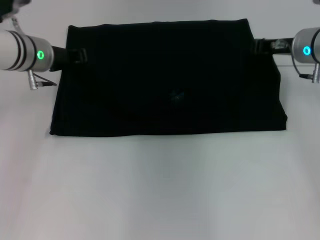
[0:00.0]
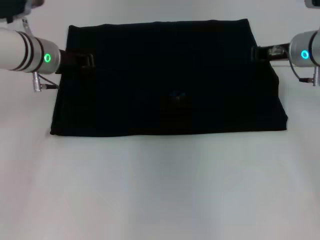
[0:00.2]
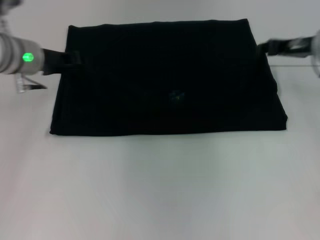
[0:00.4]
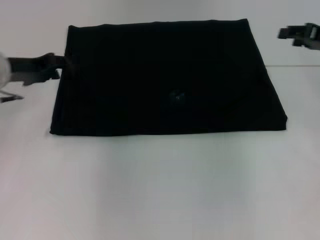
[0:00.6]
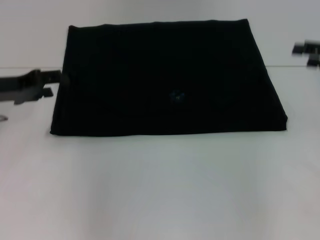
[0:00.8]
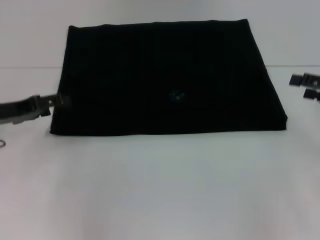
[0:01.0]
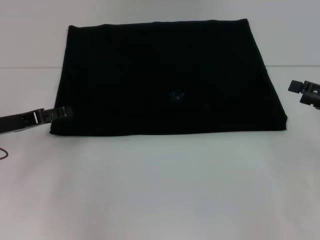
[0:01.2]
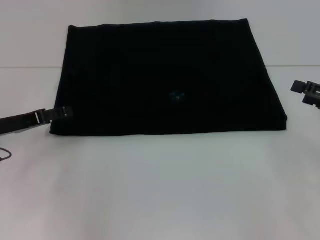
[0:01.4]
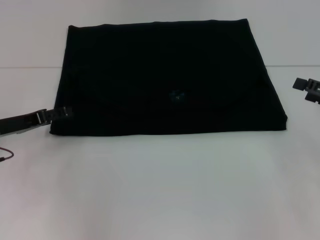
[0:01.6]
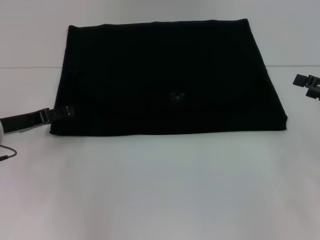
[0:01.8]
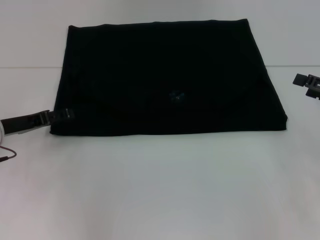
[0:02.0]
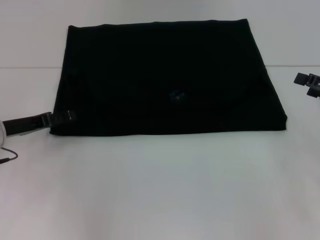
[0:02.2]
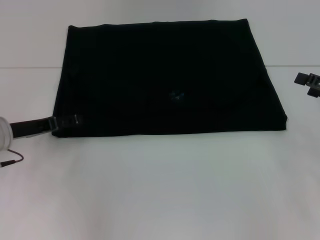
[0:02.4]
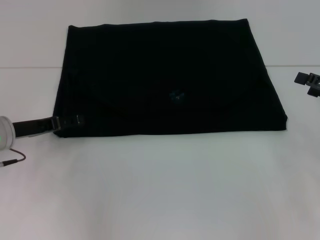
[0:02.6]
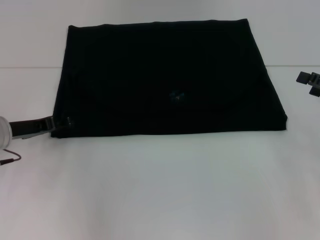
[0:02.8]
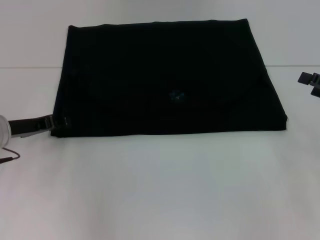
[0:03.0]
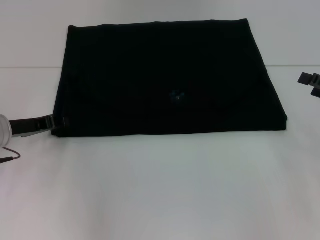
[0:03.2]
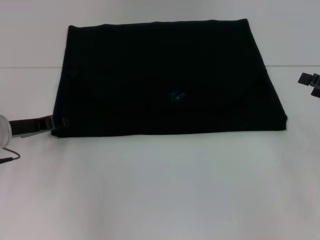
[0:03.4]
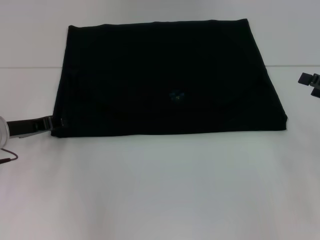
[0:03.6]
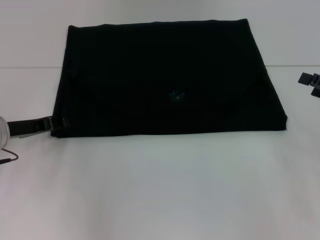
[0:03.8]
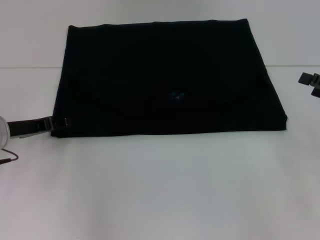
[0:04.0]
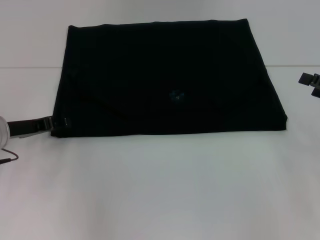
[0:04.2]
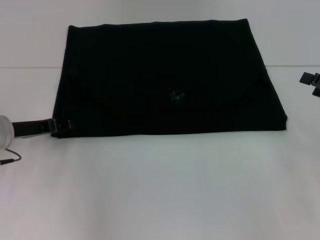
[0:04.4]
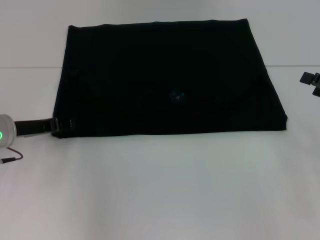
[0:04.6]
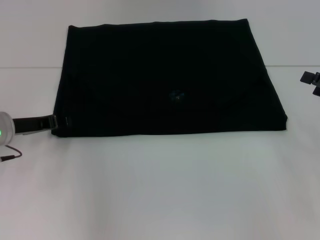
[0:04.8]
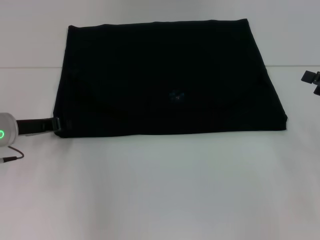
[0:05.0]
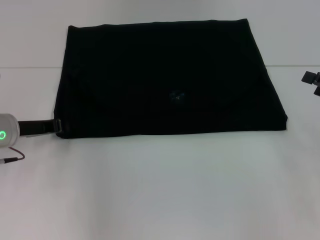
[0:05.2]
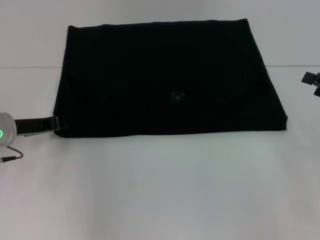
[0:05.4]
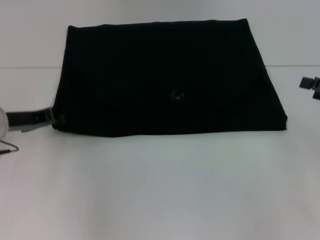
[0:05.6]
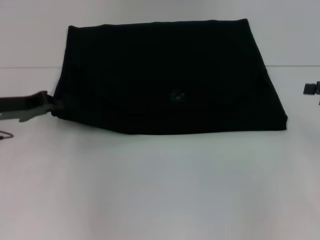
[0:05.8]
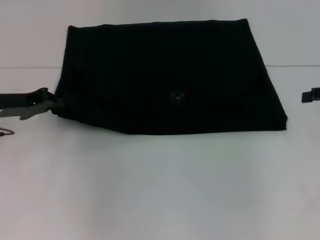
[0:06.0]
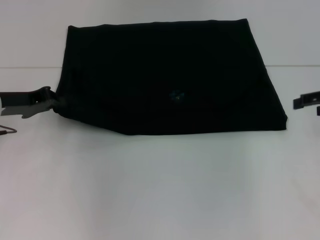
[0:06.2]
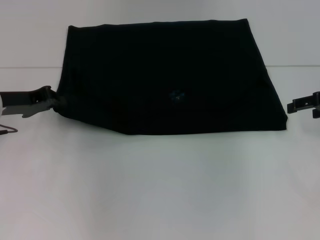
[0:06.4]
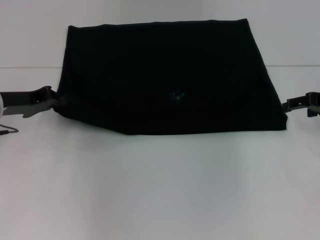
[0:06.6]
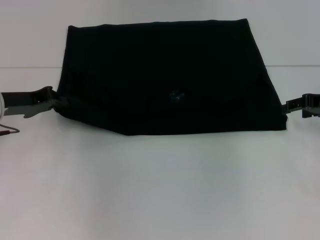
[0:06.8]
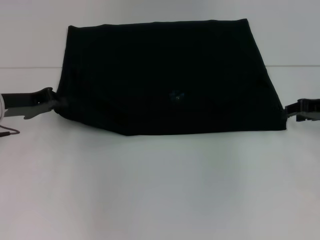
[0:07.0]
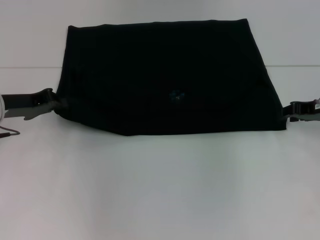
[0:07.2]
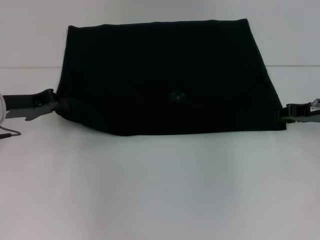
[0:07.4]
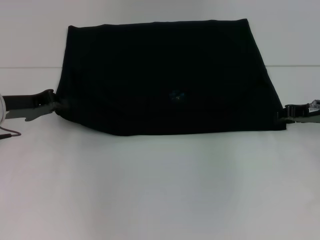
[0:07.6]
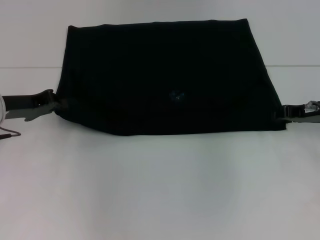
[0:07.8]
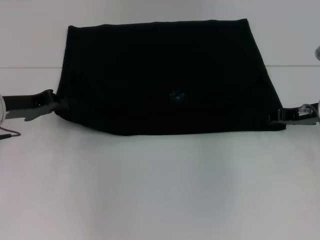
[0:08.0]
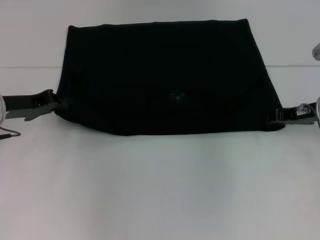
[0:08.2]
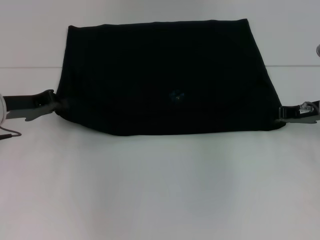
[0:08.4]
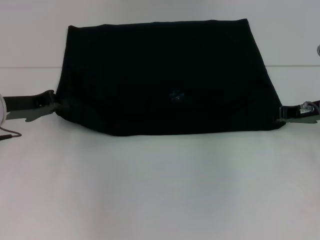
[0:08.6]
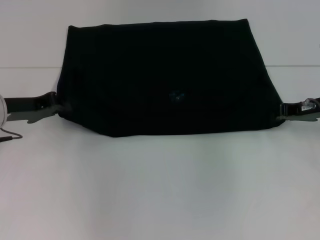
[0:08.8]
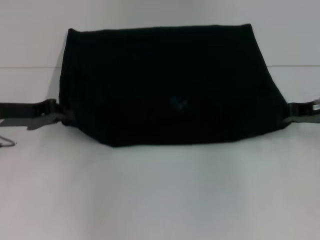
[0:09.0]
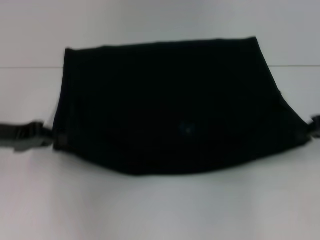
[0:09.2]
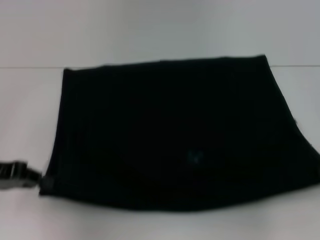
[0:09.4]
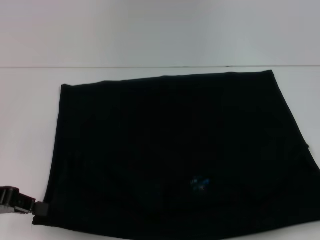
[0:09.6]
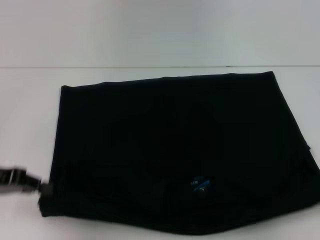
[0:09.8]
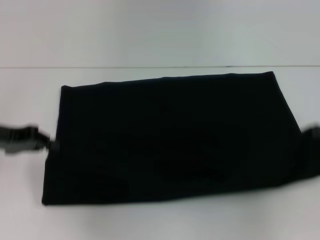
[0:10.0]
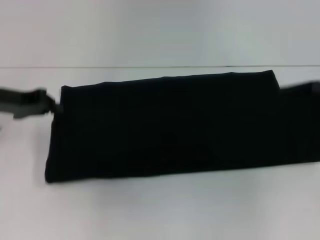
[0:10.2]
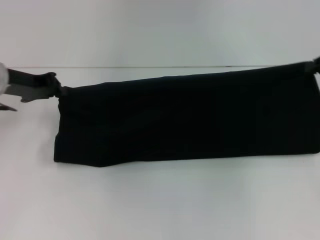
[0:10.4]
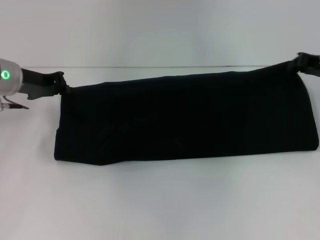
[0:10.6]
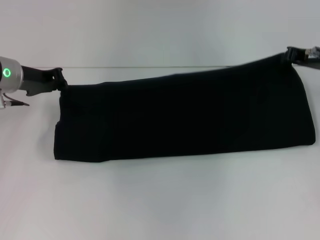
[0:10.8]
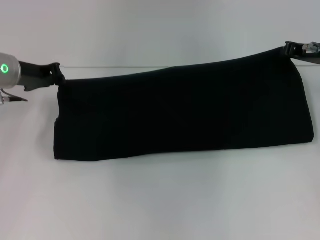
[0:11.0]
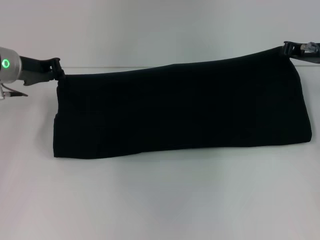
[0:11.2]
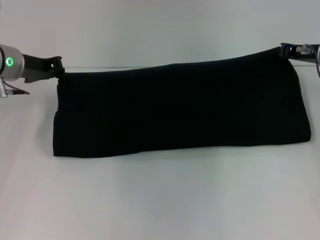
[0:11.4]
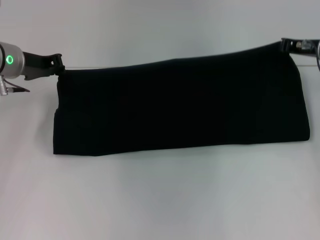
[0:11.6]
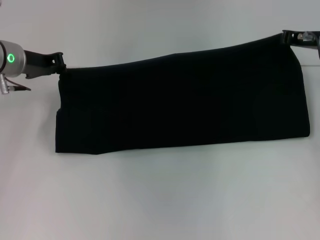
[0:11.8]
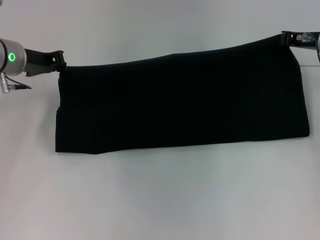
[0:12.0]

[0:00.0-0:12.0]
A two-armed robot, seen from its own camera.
Step, 0:00.6 to 0:09.4: Pull the clothes with your left hand.
Step, 0:00.6 to 0:09.4: Pull the clothes with your right hand.
0:00.0 to 0:01.6: The left gripper shifts some 15 cm backward, to the left and downward, and opens. The right gripper moves backward and to the right, about 20 cm, and opens its fingers.
0:01.6 to 0:03.0: The grippers move only a little.
0:03.0 to 0:04.4: Both grippers stay about where they are.
0:04.4 to 0:06.0: The right gripper moves upward, some 5 cm, while the left gripper closes.
0:06.0 to 0:07.6: The right gripper travels to the left and downward by about 10 cm, and closes.
0:07.6 to 0:09.0: The right gripper closes.
0:09.0 to 0:10.4: The right gripper goes backward and returns, about 10 cm each way; the left gripper moves forward, approximately 5 cm.
0:10.4 to 0:12.0: The right gripper shifts some 10 cm to the left and forward.

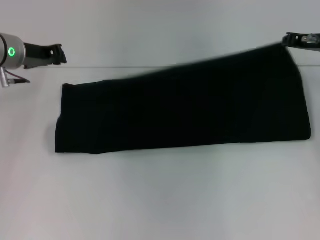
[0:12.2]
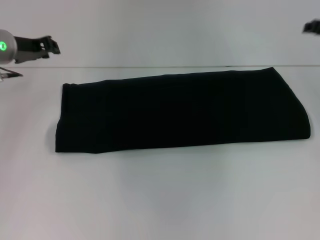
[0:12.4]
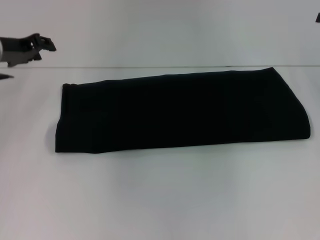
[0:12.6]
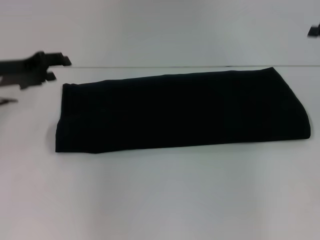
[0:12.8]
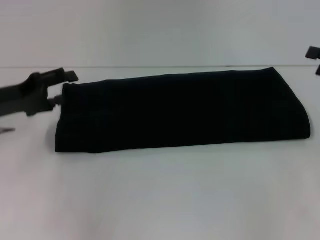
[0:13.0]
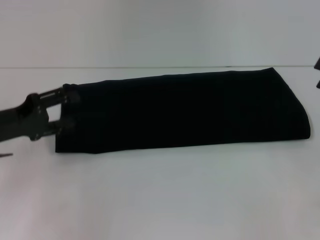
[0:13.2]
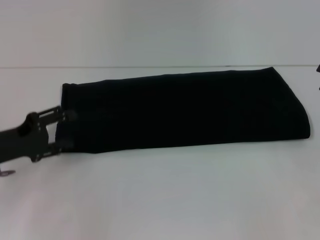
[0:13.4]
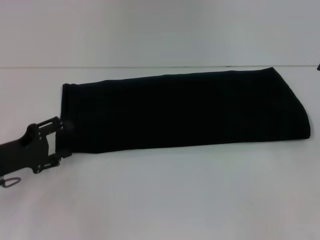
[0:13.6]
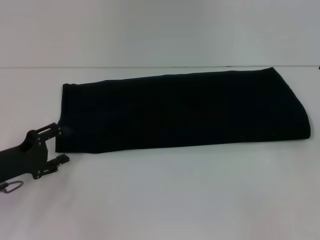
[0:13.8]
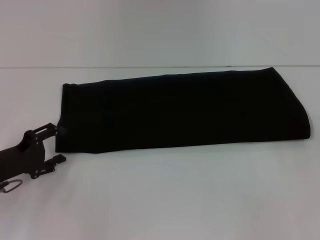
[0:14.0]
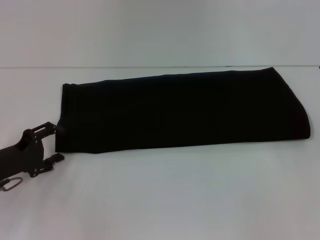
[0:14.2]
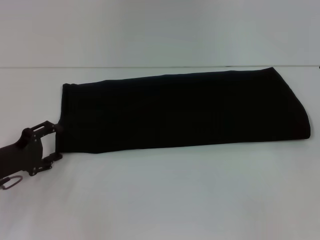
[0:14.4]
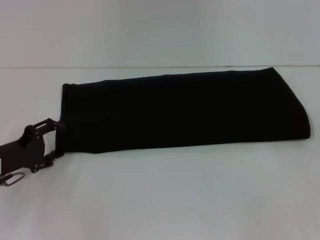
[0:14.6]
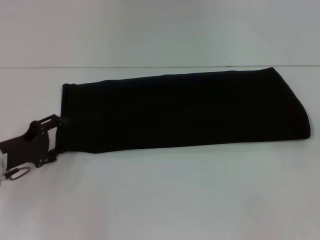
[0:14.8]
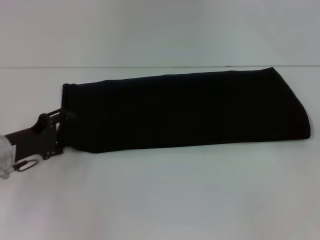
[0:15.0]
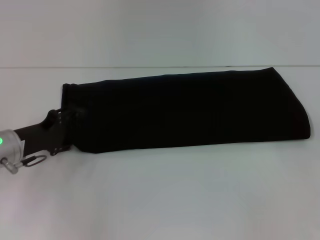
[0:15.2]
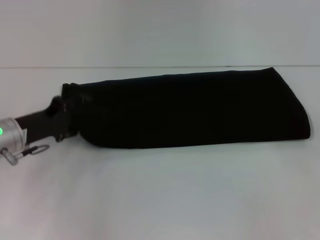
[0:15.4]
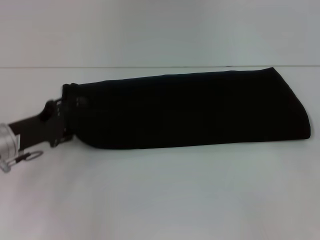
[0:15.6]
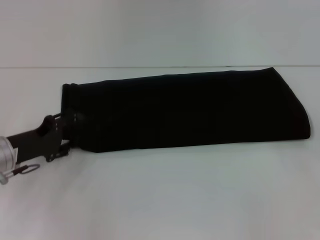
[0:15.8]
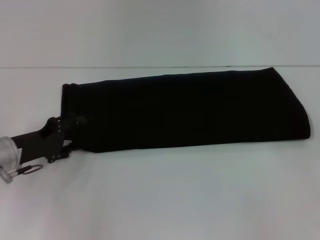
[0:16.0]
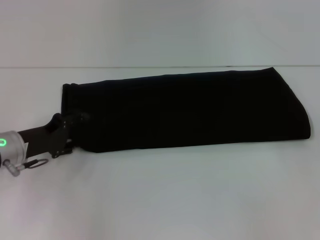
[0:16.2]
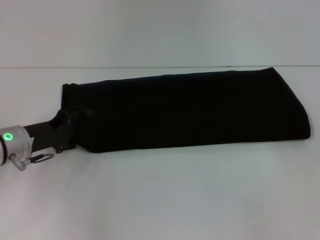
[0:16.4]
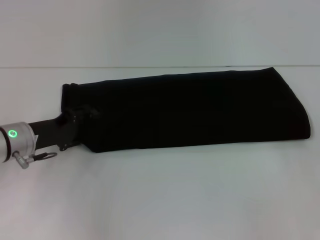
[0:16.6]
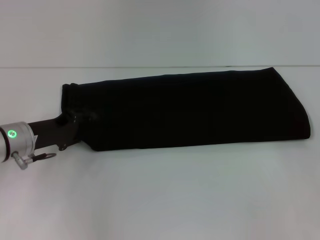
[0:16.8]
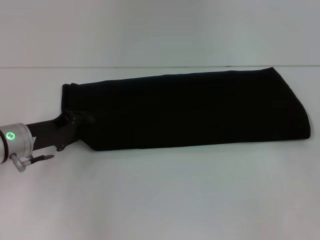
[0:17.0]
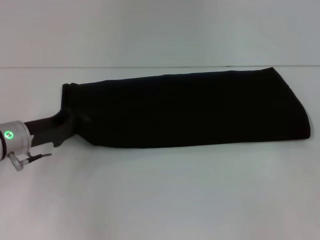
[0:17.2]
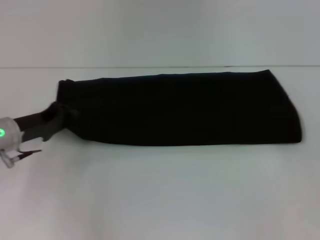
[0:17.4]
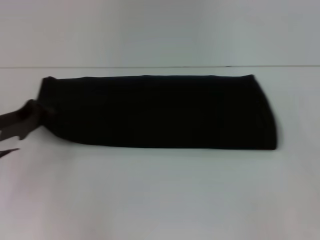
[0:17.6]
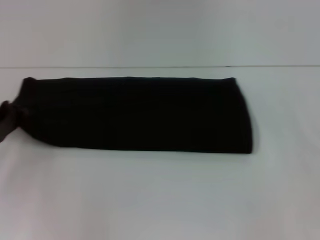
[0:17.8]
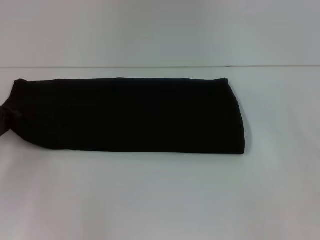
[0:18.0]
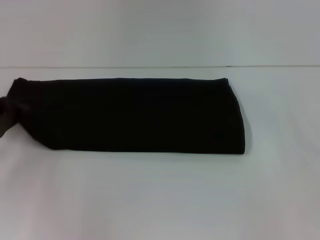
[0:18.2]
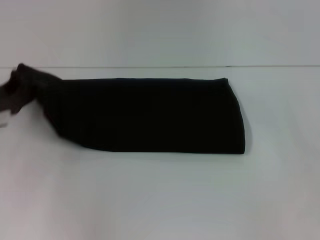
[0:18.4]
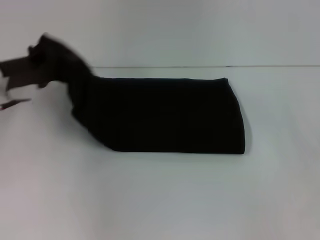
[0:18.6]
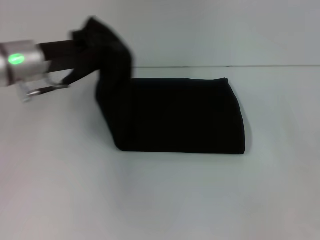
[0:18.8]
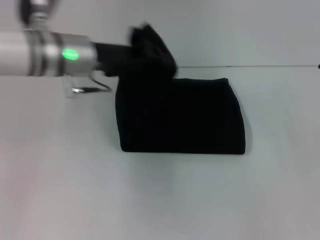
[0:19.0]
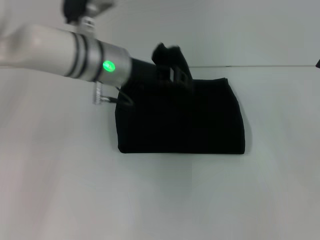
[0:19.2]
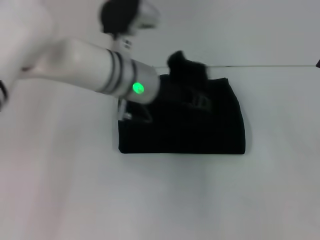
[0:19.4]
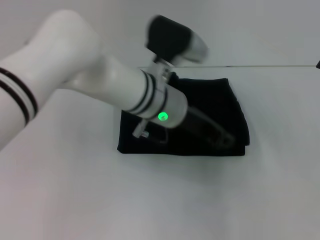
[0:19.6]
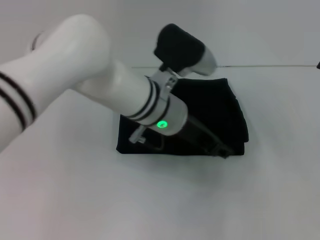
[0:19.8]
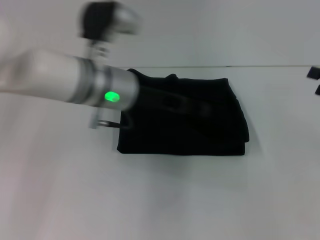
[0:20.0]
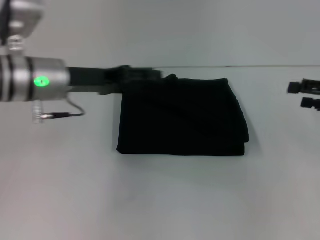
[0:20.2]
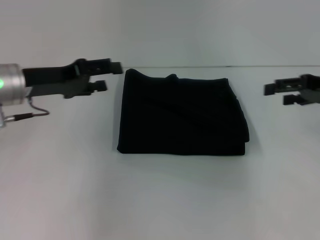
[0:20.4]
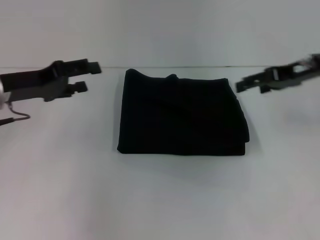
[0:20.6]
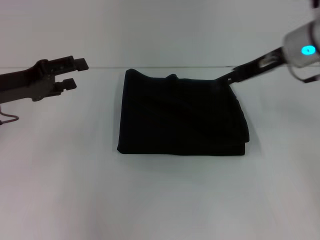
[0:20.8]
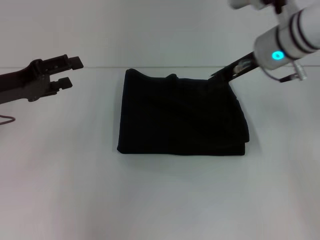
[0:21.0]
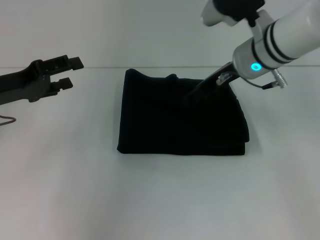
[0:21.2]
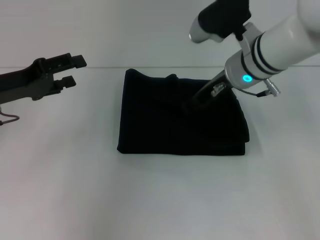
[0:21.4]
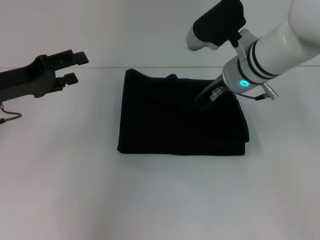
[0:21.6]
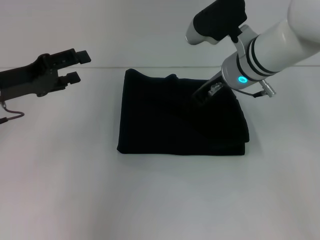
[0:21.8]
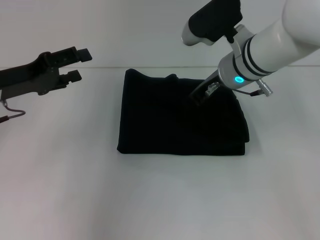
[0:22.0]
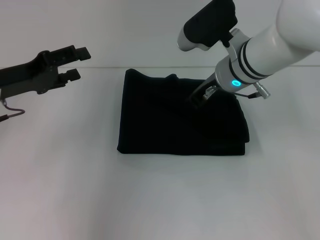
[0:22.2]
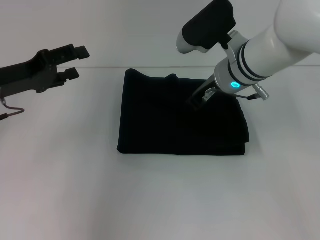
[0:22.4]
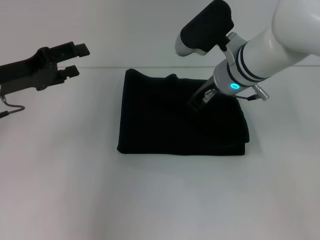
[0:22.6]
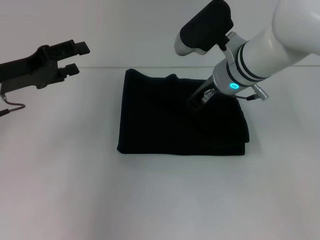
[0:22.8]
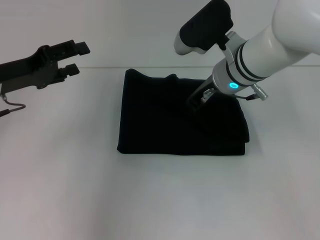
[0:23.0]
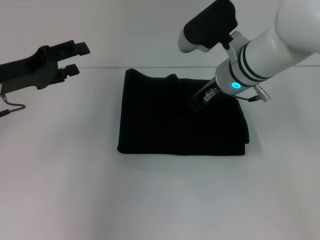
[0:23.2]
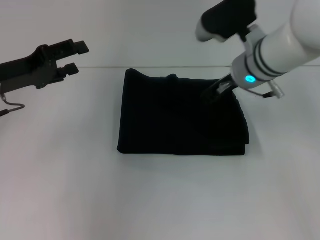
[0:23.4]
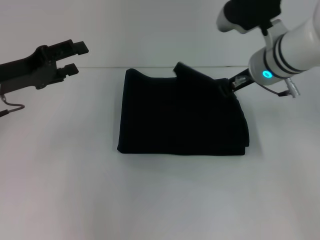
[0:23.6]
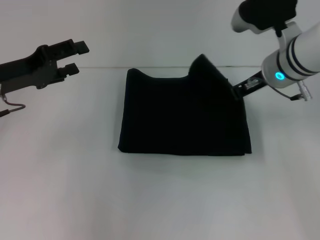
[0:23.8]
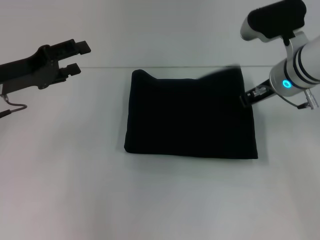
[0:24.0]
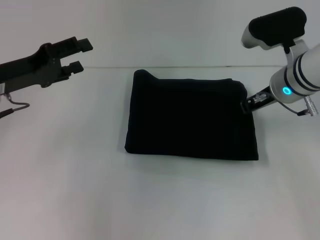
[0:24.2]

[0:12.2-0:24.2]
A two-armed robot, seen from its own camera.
Step, 0:12.2 to 0:20.0: Fold the clothes with your left hand.
0:12.2 to 0:13.8: The left gripper travels backward and downward by roughly 20 cm, and opens. Meanwhile the right gripper moves backward and to the right, roughly 20 cm, and opens up.
0:13.8 to 0:15.2: The left gripper changes place by approximately 5 cm.
0:15.2 to 0:16.6: The grippers stay close to where they were, moving slightly.
0:16.6 to 0:18.2: The left gripper travels to the left by roughly 10 cm, and closes its fingers.
0:18.2 to 0:19.8: The left gripper moves to the right, some 30 cm.
0:19.8 to 0:21.2: The left gripper is displaced to the left by some 25 cm, and opens up, while the right gripper goes about 30 cm to the left and forward.
0:21.2 to 0:22.6: The right gripper closes.
0:22.6 to 0:24.2: The right gripper shifts some 10 cm to the right.
